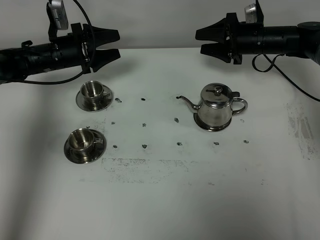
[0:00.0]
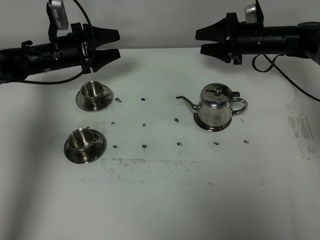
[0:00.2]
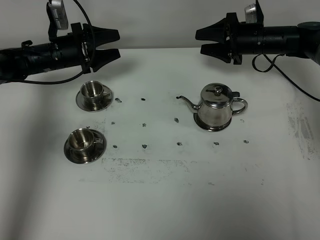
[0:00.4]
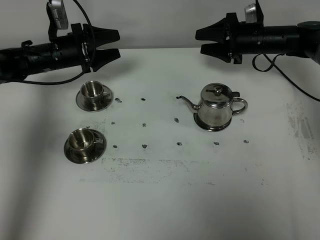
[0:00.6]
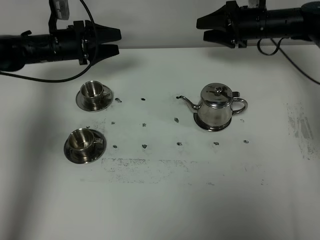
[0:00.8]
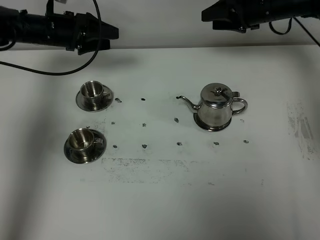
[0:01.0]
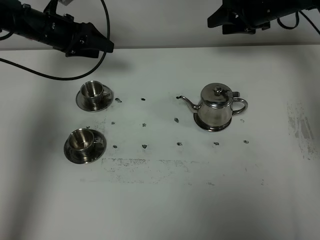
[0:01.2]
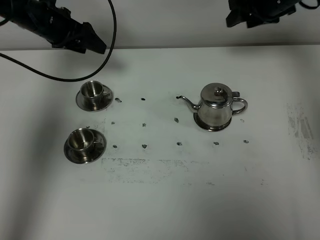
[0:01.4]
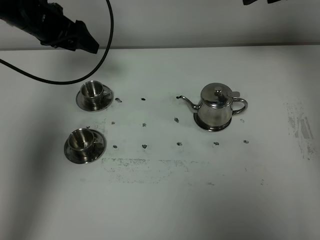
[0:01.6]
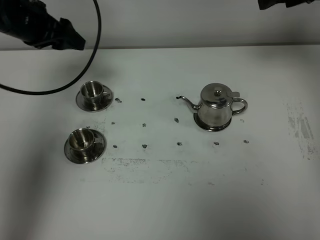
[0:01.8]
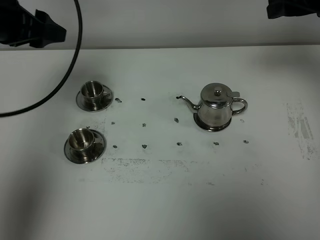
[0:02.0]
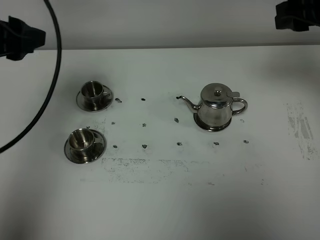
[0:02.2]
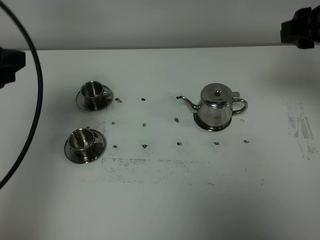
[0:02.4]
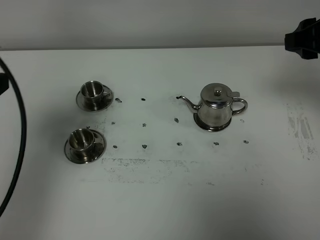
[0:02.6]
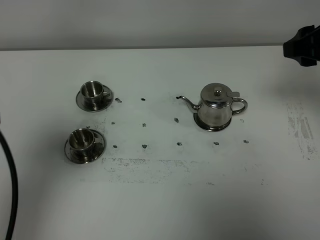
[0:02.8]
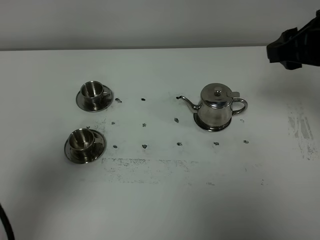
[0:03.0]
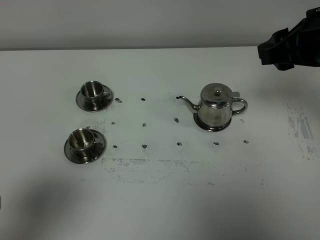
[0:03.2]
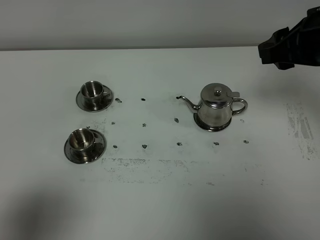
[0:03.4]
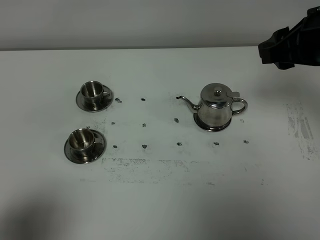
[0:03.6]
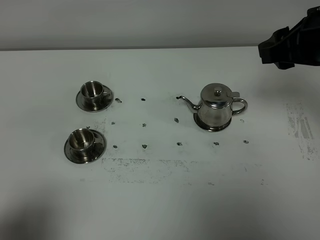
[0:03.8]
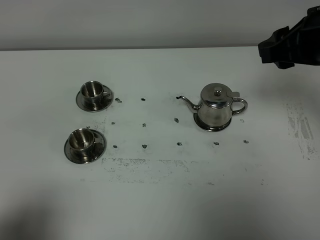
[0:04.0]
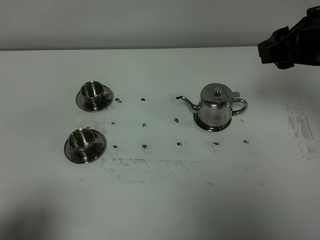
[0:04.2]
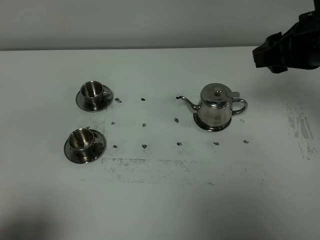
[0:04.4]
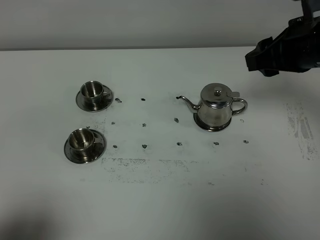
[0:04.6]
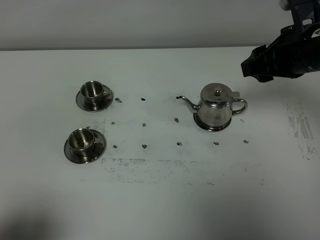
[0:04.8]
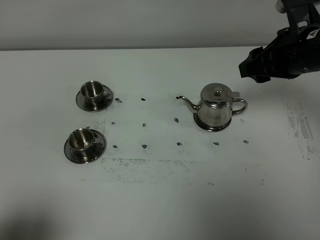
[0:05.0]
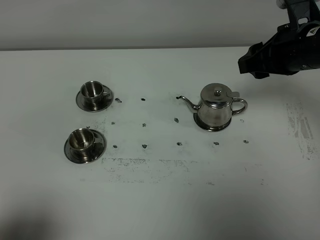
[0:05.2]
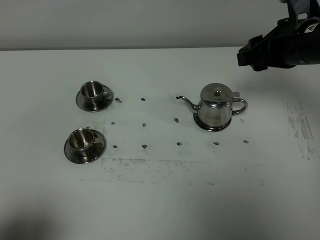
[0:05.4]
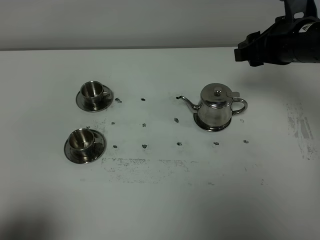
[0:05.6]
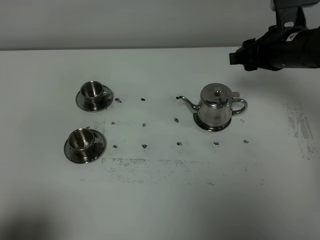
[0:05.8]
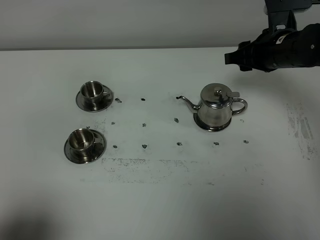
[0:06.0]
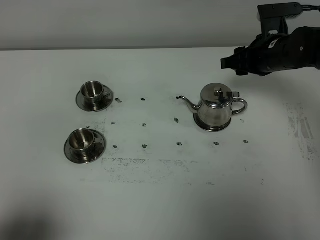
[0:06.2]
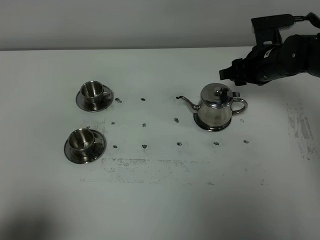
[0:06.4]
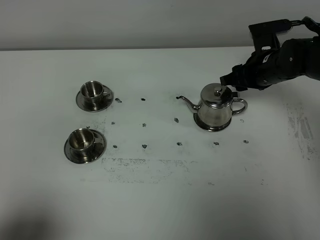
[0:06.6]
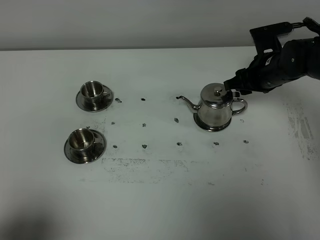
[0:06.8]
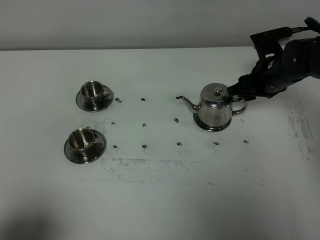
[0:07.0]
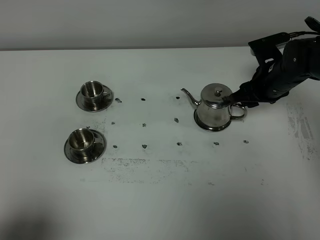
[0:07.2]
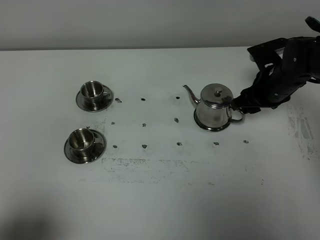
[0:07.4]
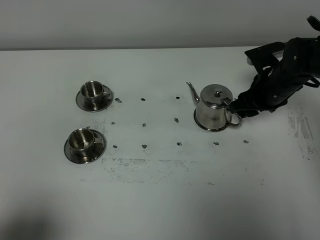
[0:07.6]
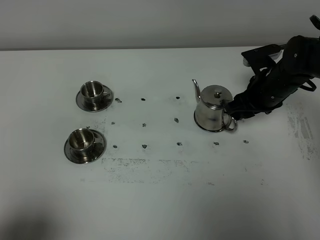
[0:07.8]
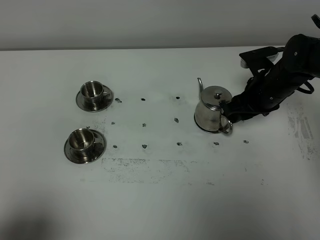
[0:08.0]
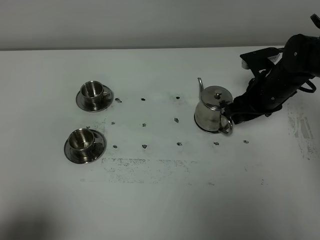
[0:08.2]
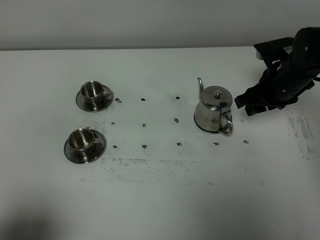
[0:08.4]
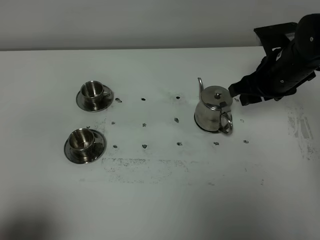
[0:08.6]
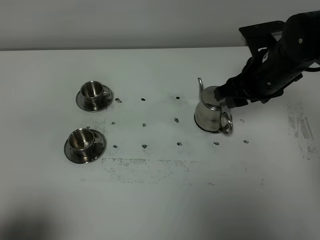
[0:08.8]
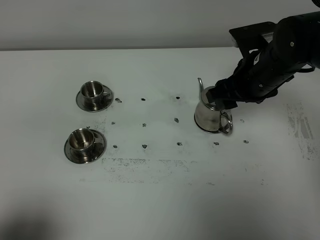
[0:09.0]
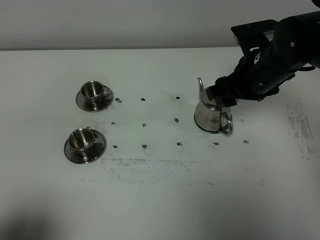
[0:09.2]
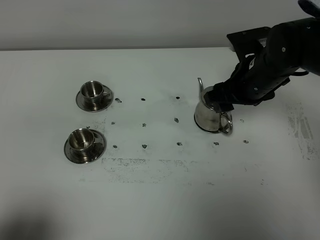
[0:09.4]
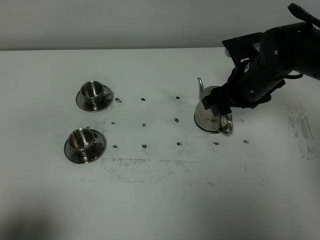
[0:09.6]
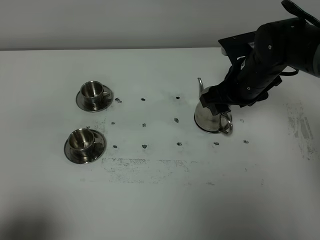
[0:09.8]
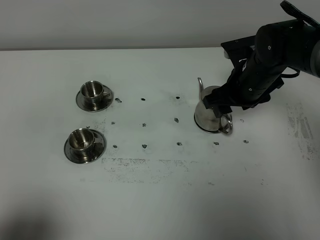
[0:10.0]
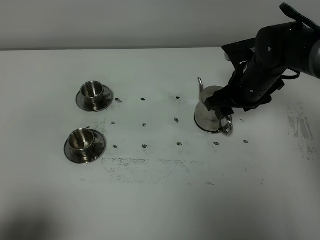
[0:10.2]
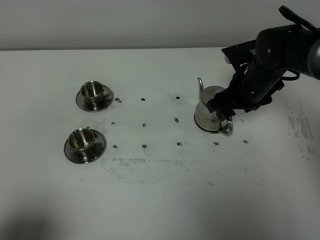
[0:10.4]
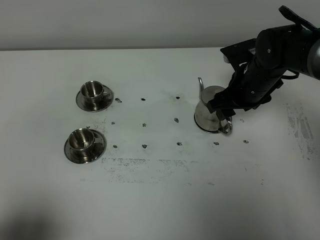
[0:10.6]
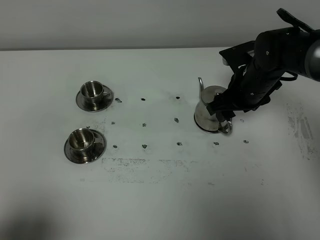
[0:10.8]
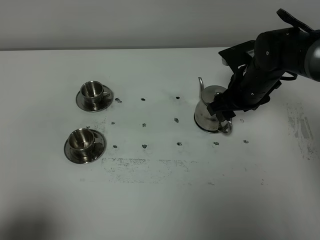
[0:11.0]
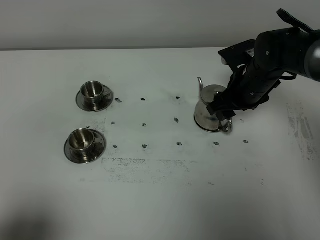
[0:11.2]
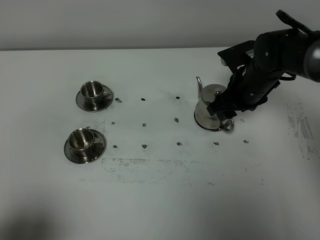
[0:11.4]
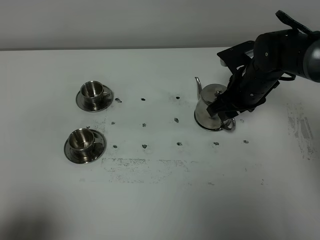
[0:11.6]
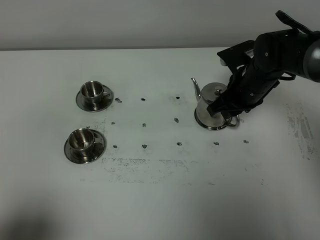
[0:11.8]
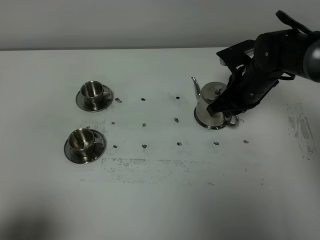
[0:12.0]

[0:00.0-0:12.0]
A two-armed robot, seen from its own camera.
Task of the whole recording: grasp the stainless steel teapot and pour the tea into the two stainless steel teacups one by one, put the stainless steel teapot back in its original place.
0:00.0 to 0:01.6: The left gripper is displaced upward by approximately 15 cm; the right gripper moves upward, some 20 cm.
0:01.6 to 0:03.0: The left gripper is displaced backward by about 40 cm, while the right gripper heads backward, covering about 15 cm.
0:03.0 to 0:04.4: The left gripper heads backward and downward, covering some 10 cm.
0:04.4 to 0:06.0: The right gripper goes about 15 cm downward and forward.
0:06.0 to 0:07.6: The right gripper heads downward, covering approximately 5 cm.
0:07.6 to 0:09.0: The right gripper heads upward, to the left and backward, covering some 10 cm.
0:09.0 to 0:10.4: The right gripper is displaced downward by some 5 cm.
0:10.4 to 0:12.0: The right gripper closes its fingers.

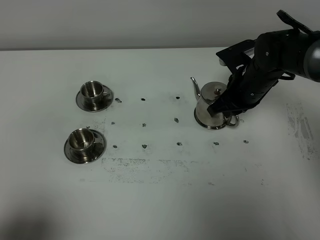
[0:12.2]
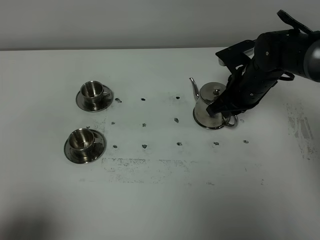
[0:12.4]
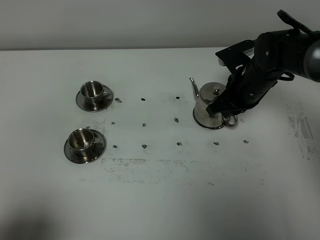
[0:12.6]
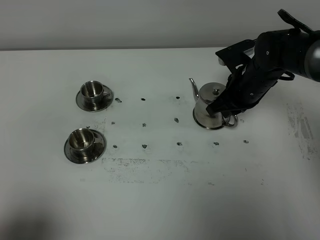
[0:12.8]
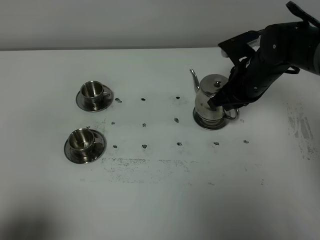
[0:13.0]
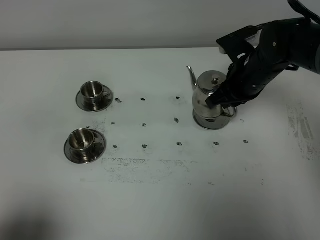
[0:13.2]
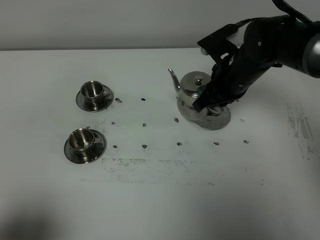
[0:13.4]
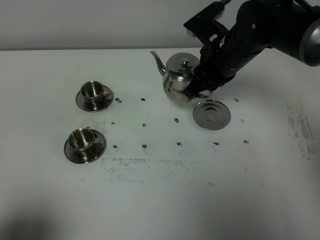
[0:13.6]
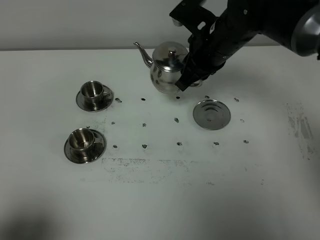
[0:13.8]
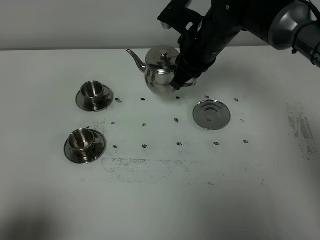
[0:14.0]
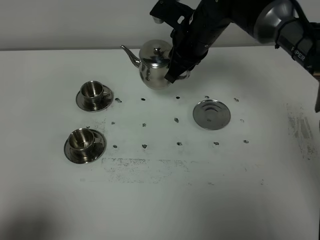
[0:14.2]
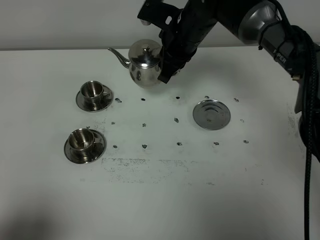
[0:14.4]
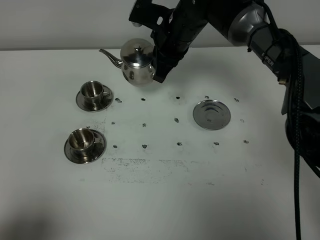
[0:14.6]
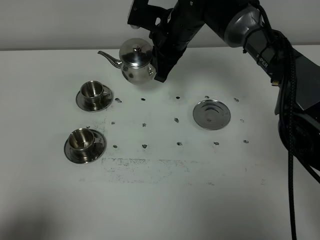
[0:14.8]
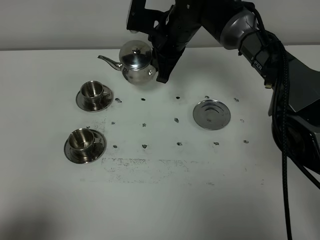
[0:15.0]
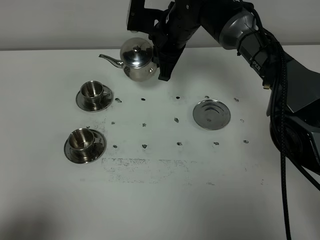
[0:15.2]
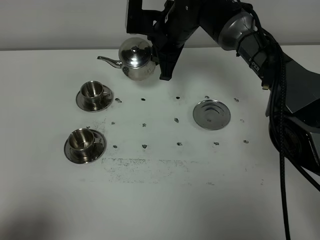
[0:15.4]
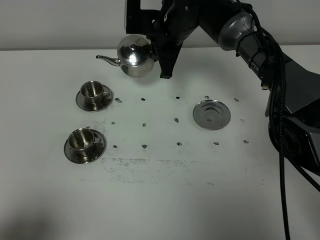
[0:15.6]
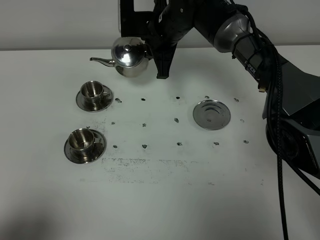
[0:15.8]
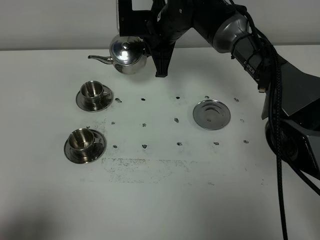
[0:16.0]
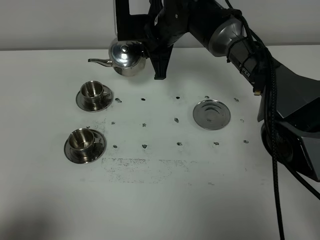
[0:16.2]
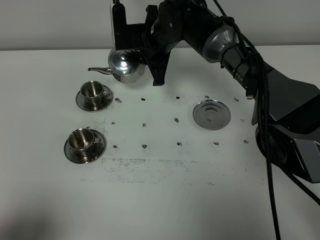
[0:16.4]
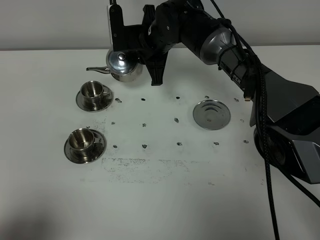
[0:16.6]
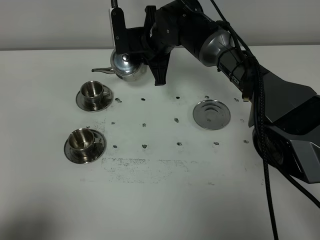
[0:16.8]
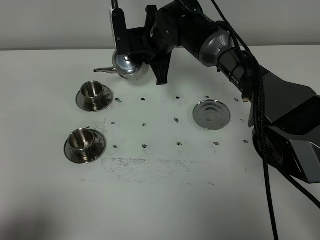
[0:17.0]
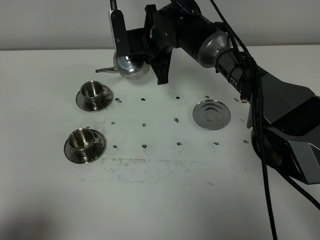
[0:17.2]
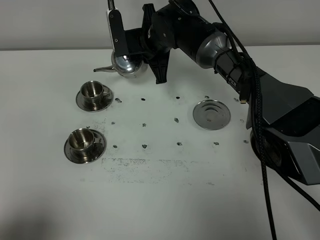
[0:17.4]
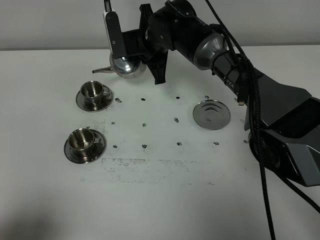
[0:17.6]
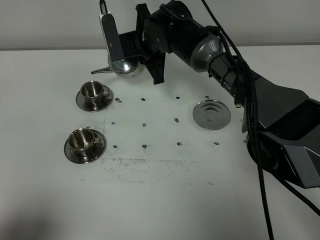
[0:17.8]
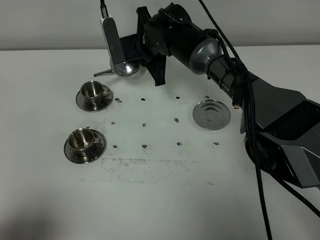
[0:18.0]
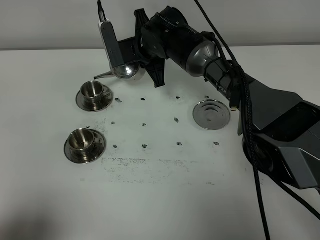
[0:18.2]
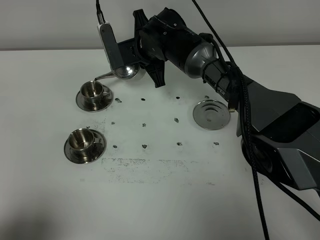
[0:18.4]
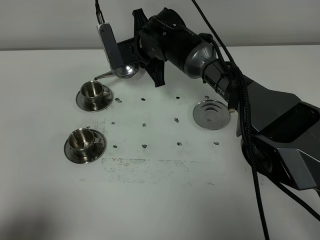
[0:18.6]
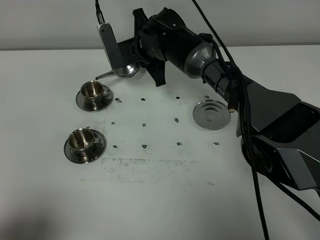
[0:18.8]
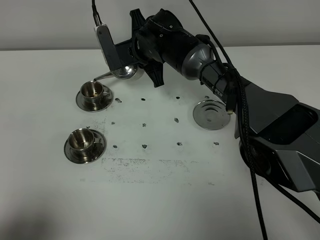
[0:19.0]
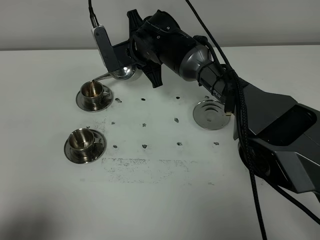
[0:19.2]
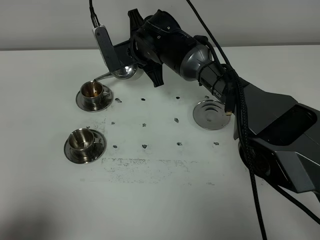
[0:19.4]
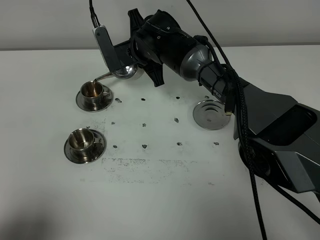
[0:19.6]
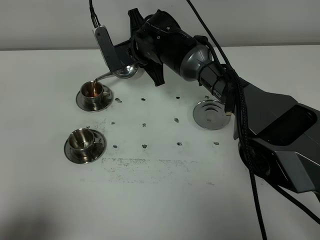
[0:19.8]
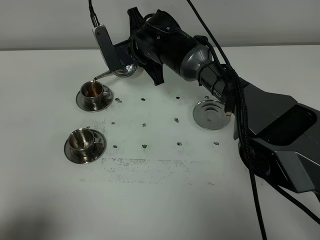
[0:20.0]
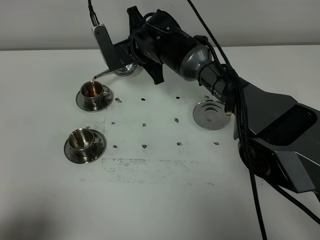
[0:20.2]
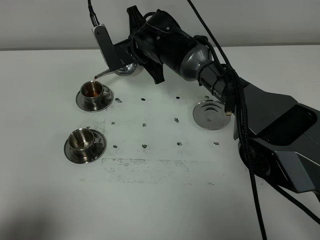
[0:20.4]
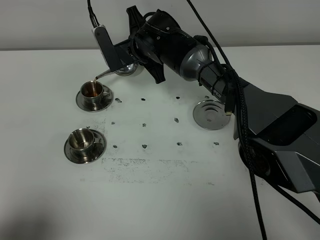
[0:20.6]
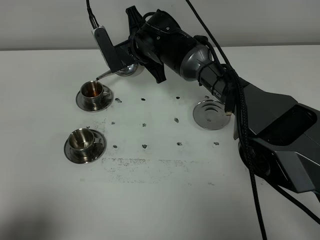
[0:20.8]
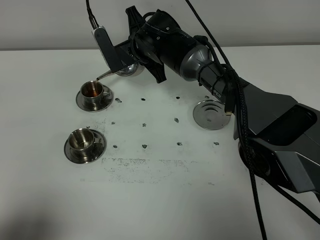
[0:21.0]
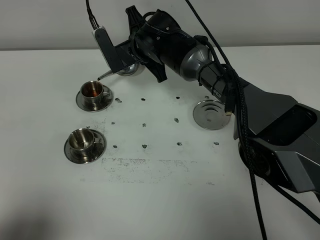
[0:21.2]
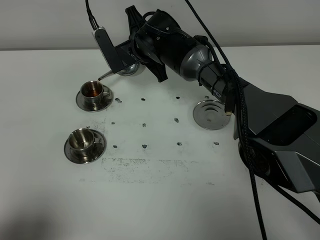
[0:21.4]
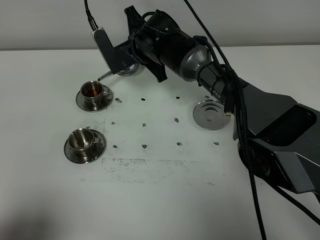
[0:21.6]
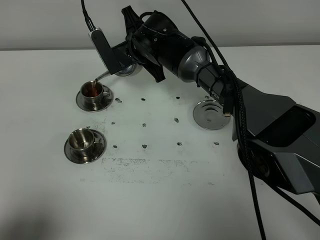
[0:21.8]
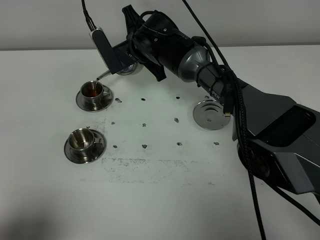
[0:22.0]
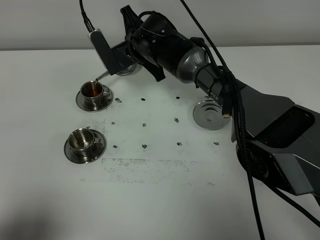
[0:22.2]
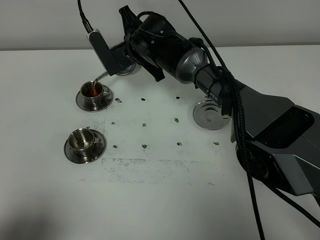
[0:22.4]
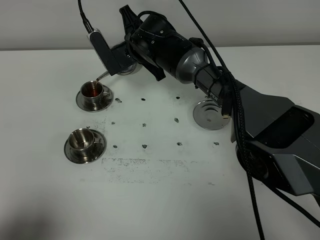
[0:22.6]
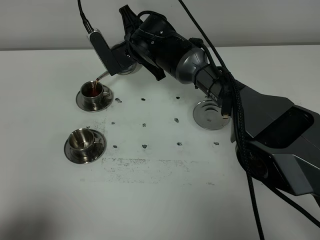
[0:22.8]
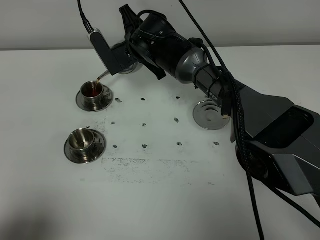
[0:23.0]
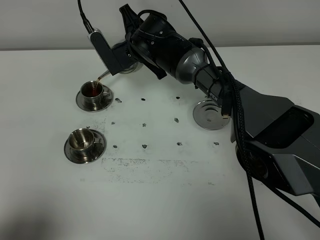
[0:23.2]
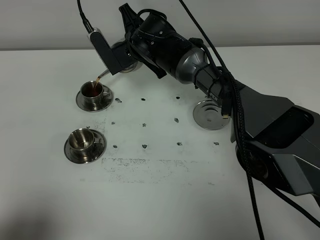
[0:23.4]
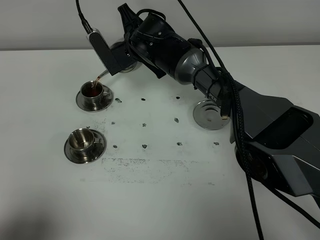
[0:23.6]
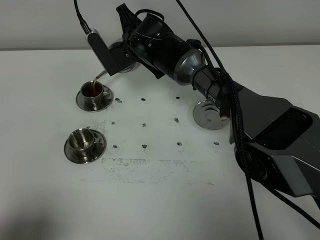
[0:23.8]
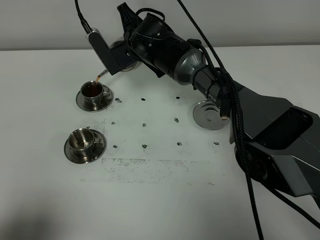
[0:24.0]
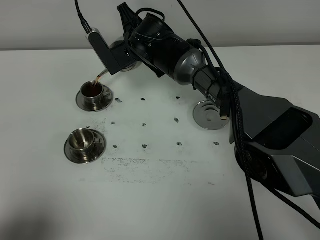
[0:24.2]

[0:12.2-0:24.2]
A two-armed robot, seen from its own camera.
Task of the whole recording: grasp the stainless steel teapot and pour the tea into the two stainless steel teacups one by one, put the stainless steel teapot back in its original place.
0:12.2 to 0:13.8: The right gripper travels upward and to the left by about 10 cm.
0:13.8 to 0:15.2: The right gripper shifts some 10 cm forward and to the left.
0:15.2 to 0:16.6: The grippers move only a little.
0:16.6 to 0:18.2: The grippers stay close to where they were, moving slightly.
0:18.2 to 0:21.2: The grippers make only small movements.
0:21.2 to 0:22.6: Both grippers stay about where they are.
0:22.6 to 0:24.2: The two grippers keep their place.
